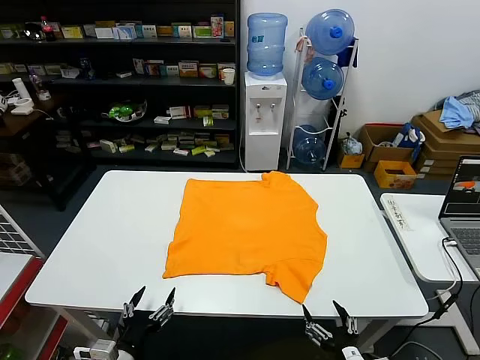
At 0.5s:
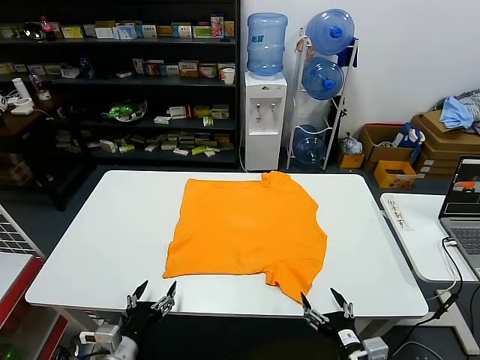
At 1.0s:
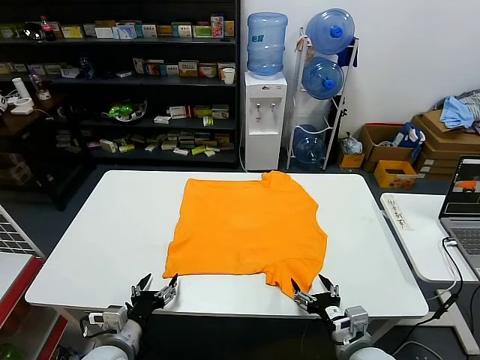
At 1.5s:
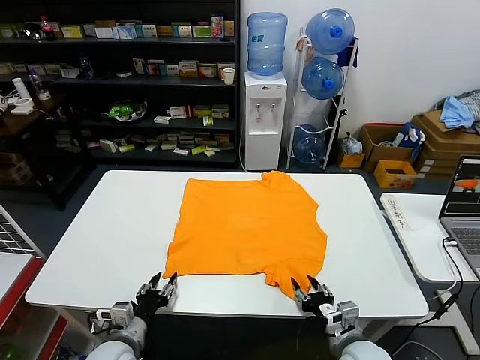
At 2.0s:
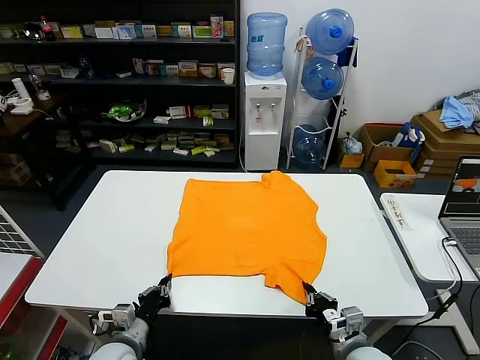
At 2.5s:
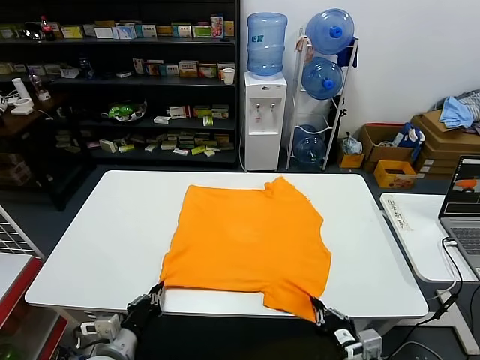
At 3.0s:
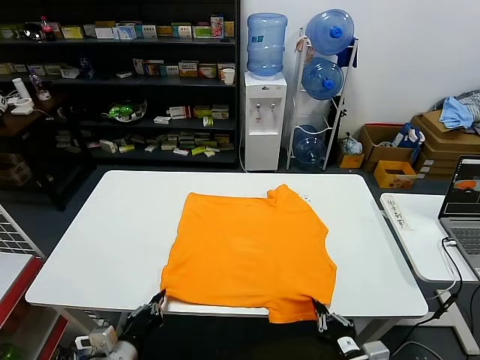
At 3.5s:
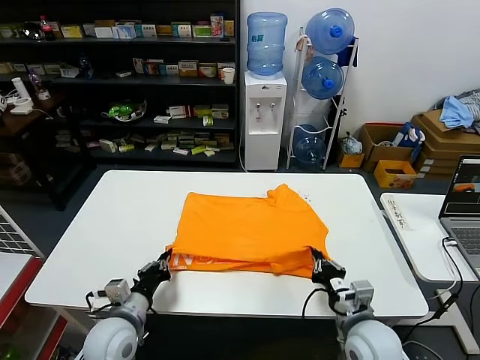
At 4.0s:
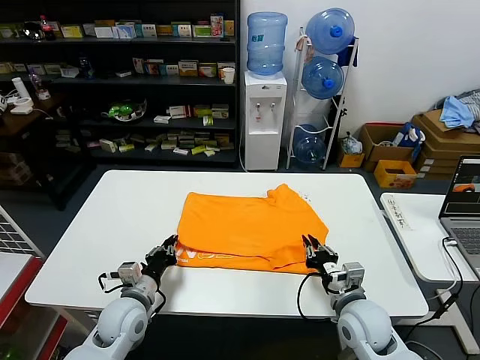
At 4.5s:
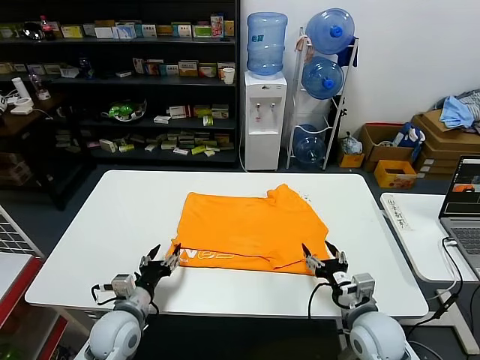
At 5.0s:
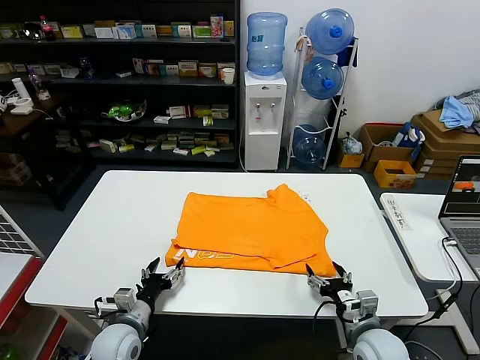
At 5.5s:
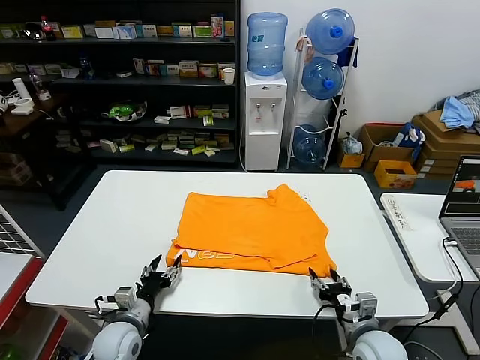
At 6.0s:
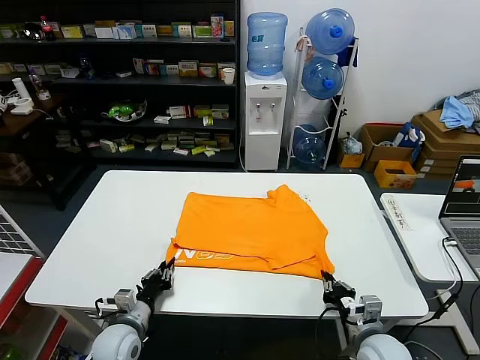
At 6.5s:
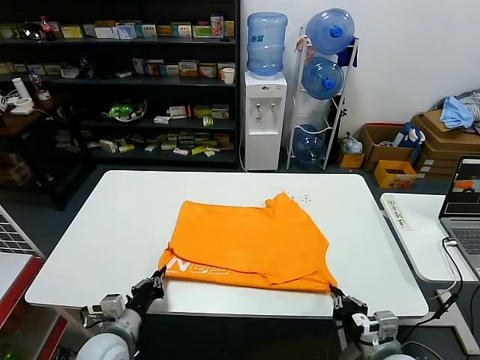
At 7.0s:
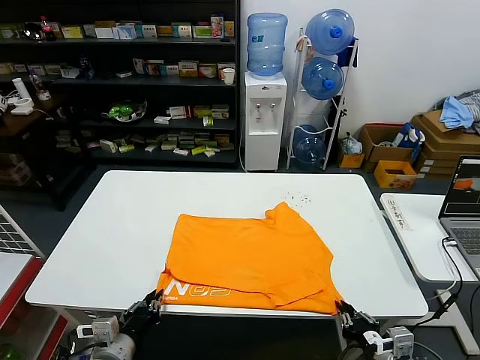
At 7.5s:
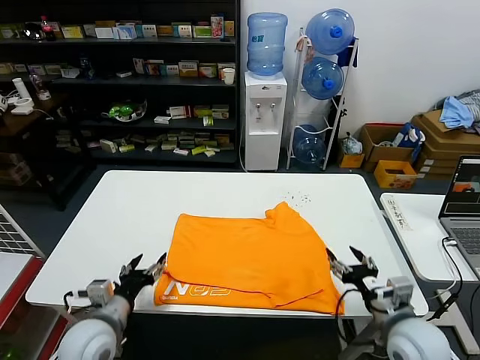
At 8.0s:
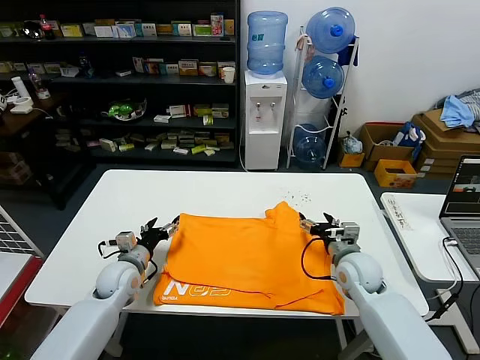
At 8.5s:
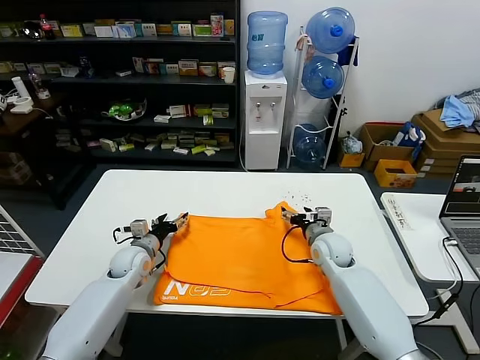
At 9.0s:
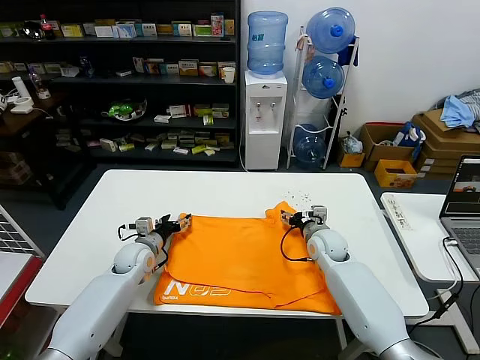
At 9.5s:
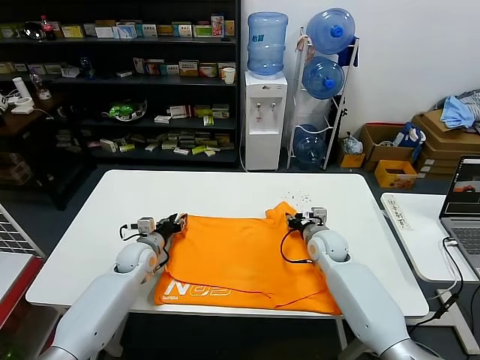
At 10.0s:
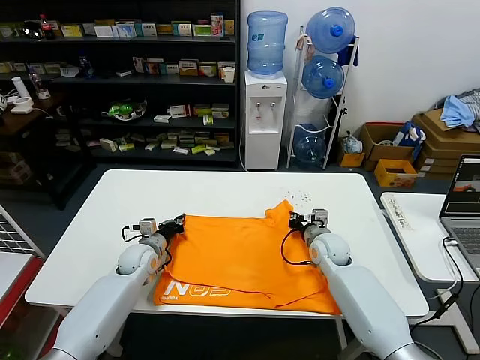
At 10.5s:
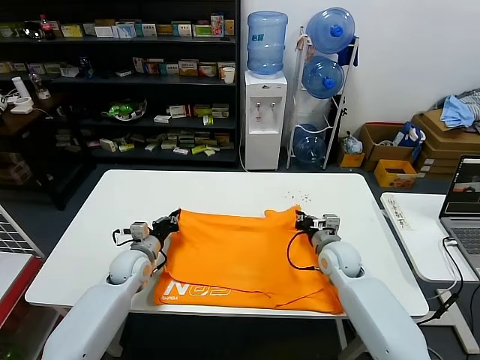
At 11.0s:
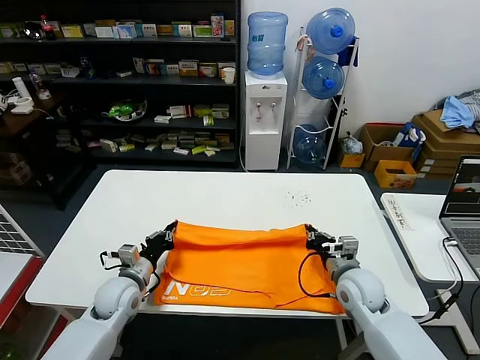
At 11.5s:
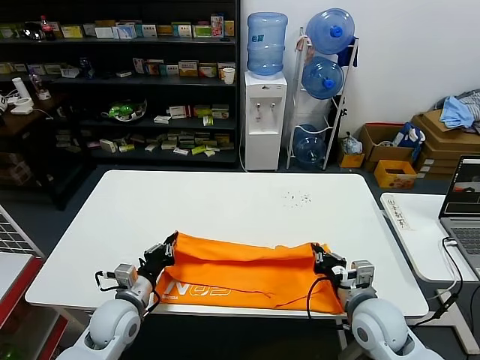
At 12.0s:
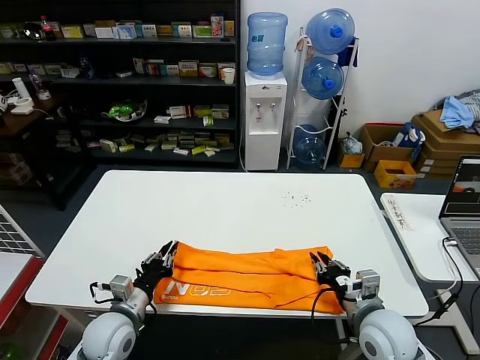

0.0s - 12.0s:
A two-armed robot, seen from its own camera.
Task of the whole recording: fold and organize the clothes.
Step, 0.0s - 2.0s: use both grippers simultaneously to clamp the lower edge of the clothing fabric.
Step, 2.5s - 4.0s: use both grippers to drag the lower edge of the fabric forward and fold it over the upper edge.
Step, 4.5s - 7.0s: Drag the clothes downward with both gripper.
Step, 7.5s - 10.0s: use both grippers simultaneously to clamp the upper edge of the clothing fabric.
2.0s - 4.0s: Both grippers travel together forward, some 10 cm. The right gripper opens up.
4.0s - 6.0s: The right gripper moves backward, some 5 cm, and opens, then closes again, while the left gripper goes approximately 5 cm downward, and opens, then closes again.
6.0s - 8.0s: The left gripper is displaced forward and upward by approximately 15 cm, and opens up. The right gripper travels forward by approximately 20 cm, and opens up.
8.0s - 10.0s: The grippers both shift forward by roughly 5 cm. The right gripper closes up. The left gripper closes.
10.0s - 12.0s: The two grippers go roughly 20 cm backward.

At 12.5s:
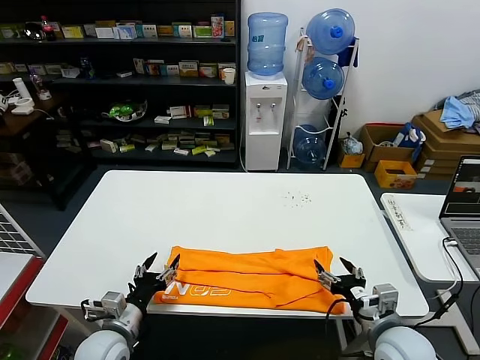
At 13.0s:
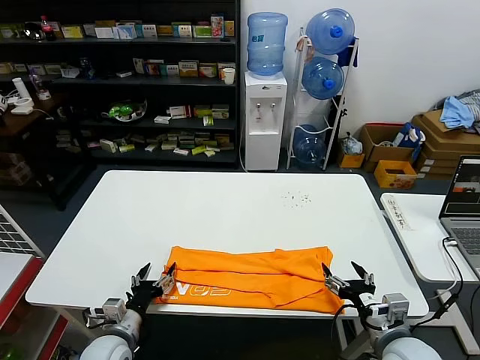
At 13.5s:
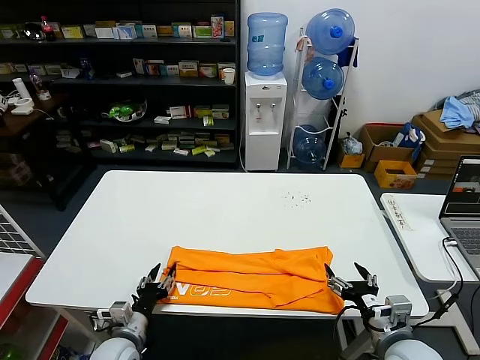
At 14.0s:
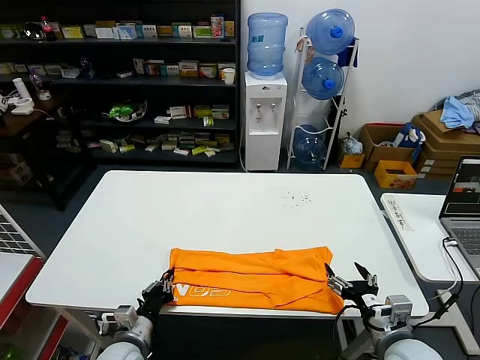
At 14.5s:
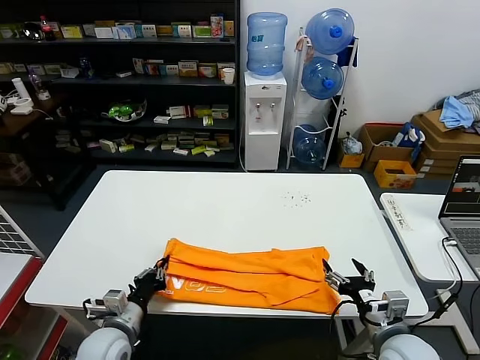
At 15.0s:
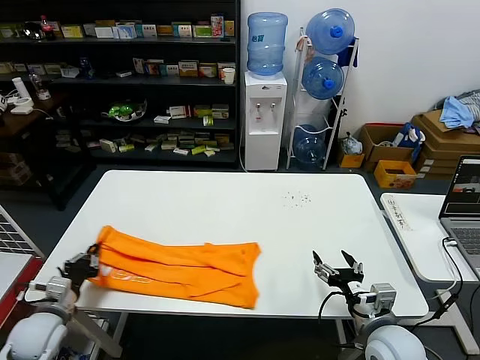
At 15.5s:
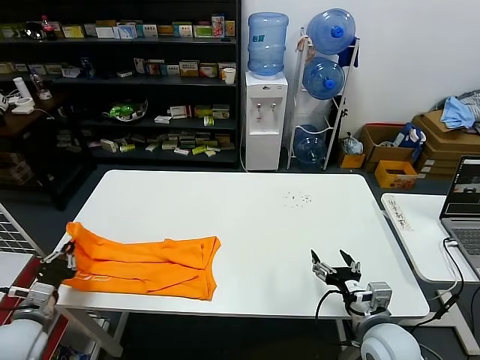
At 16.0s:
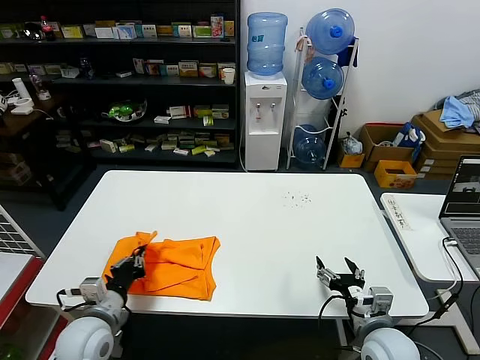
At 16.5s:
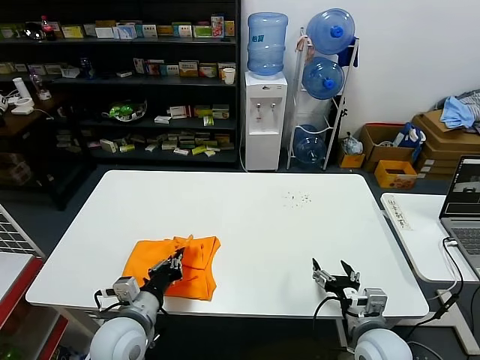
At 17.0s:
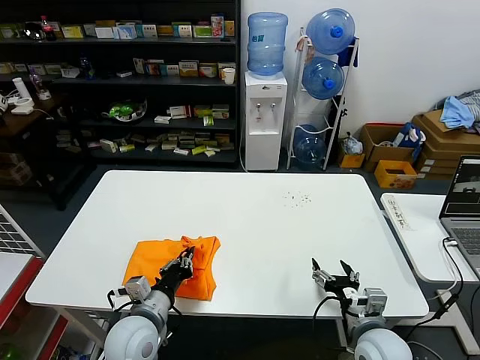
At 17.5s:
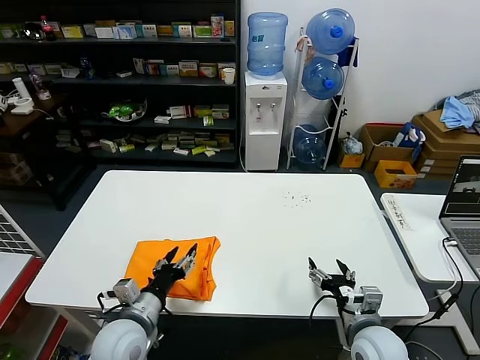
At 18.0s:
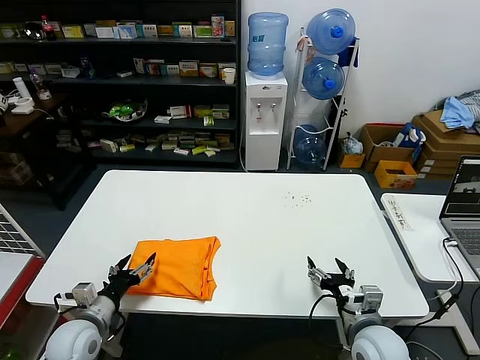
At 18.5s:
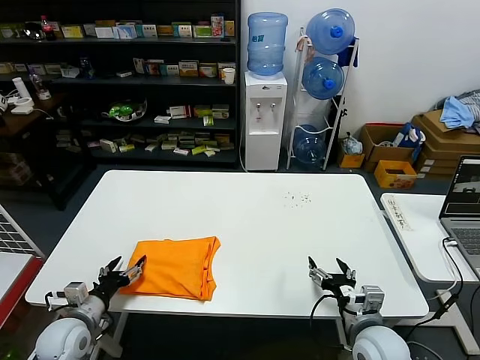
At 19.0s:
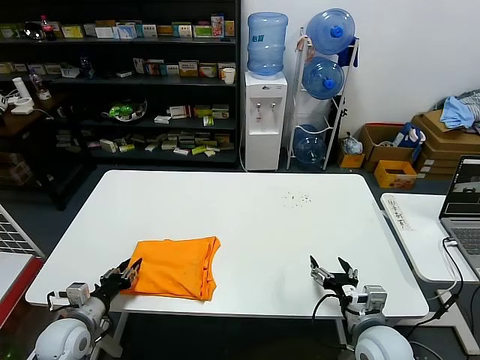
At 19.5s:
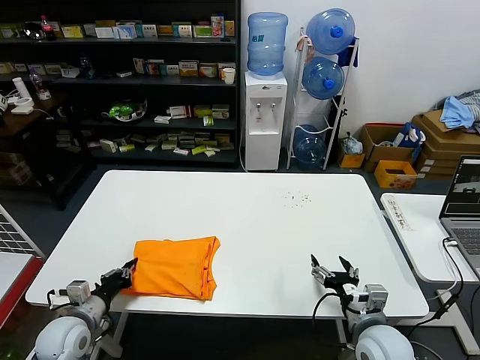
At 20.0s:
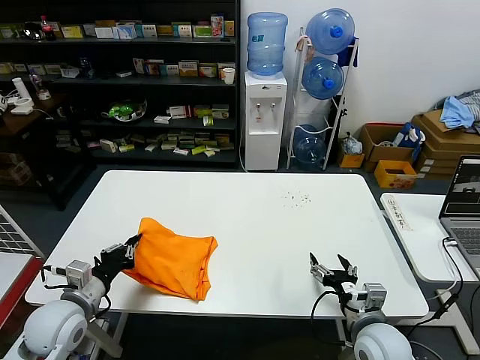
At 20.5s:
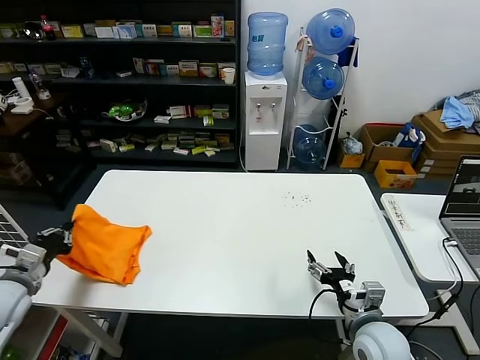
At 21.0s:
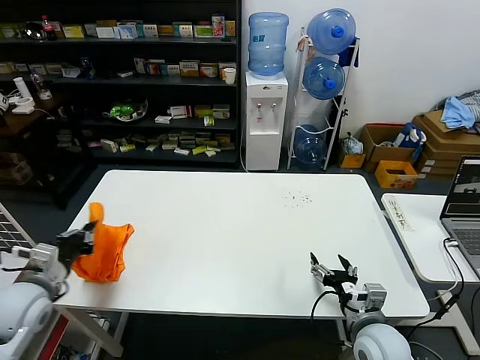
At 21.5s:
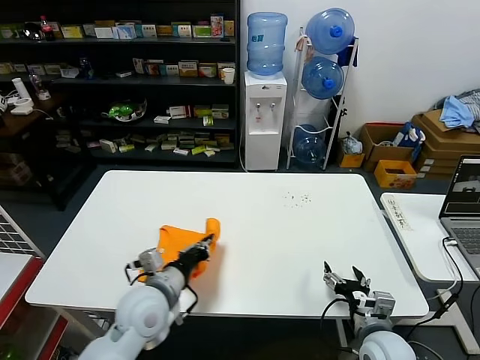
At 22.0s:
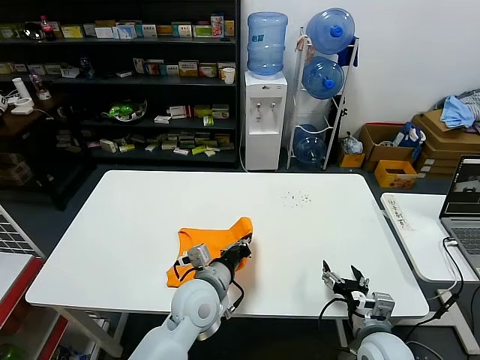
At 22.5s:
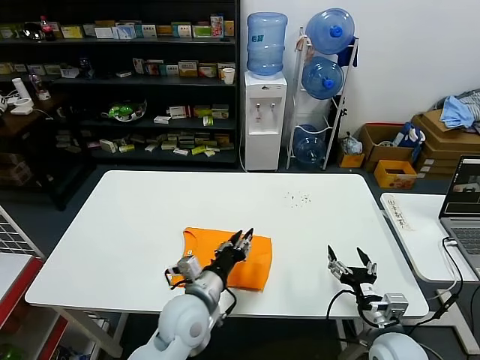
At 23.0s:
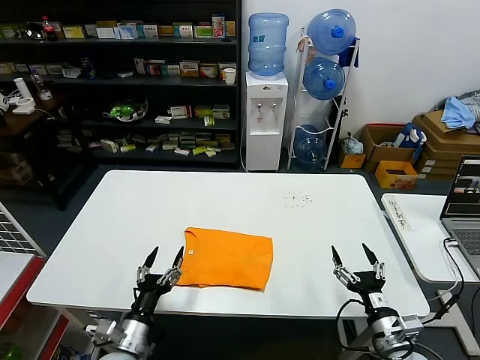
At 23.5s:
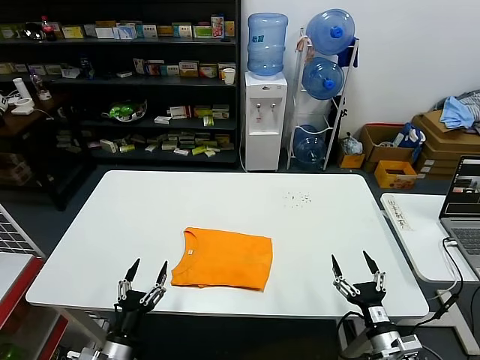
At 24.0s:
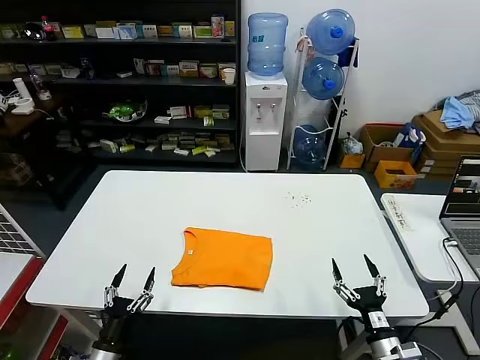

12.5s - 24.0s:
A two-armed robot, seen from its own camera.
Task of the whole recording: fold and organize the clothes.
Step, 12.5s - 14.0s: use the left gripper to clamp the left edge of the fabric.
Step, 14.5s - 17.0s: use the left gripper to drag the left edge of the fabric to the left and folds it over the right edge.
Step, 17.5s - 22.5s: Flip the folded clothes over with left gripper.
12.5s - 14.5s: The left gripper closes.
14.5s - 16.5s: The left gripper travels upward by roughly 5 cm, and travels to the left and back again, approximately 20 cm each way.
16.5s - 18.5s: The left gripper goes about 15 cm to the left and downward, and opens.
18.5s - 20.0s: The left gripper heads upward, covering some 10 cm, and closes.
20.0s - 22.0s: The left gripper heads to the right, covering roughly 25 cm.
22.0s - 24.0s: The right gripper travels backward by roughly 5 cm. The left gripper travels to the left, downward and backward by about 30 cm, and opens.

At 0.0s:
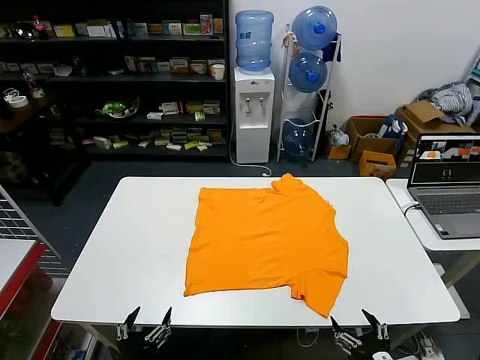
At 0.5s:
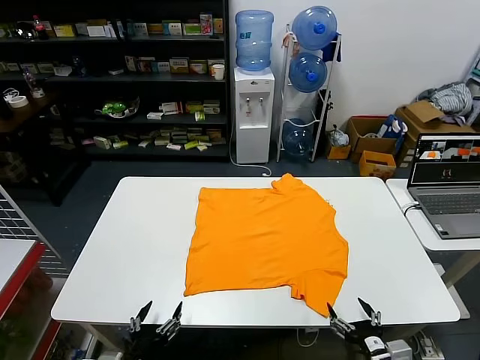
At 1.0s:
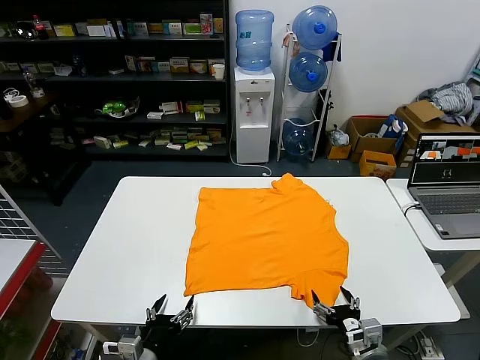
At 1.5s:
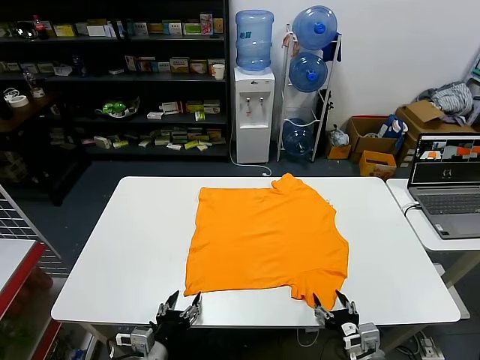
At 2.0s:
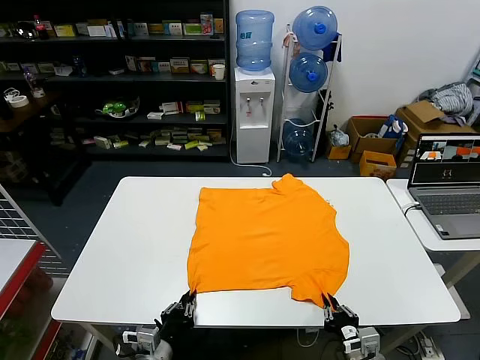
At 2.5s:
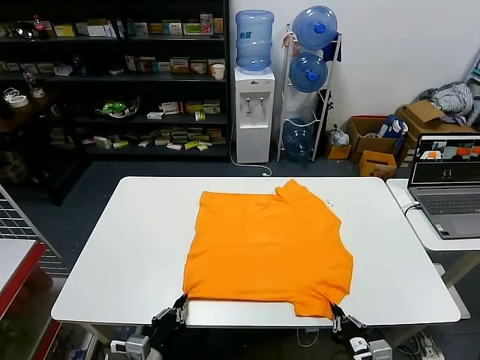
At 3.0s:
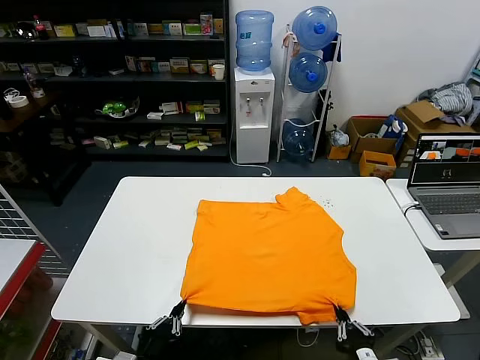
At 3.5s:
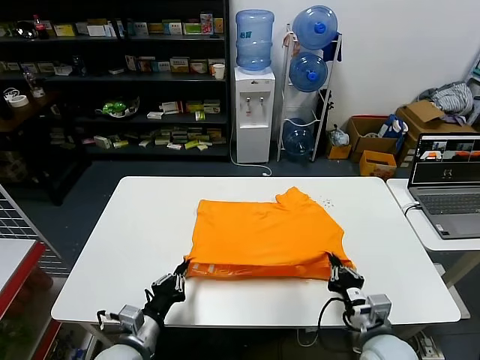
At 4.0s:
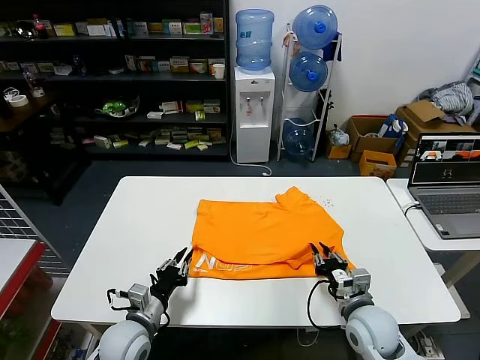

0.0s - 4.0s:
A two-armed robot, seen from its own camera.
Task of the whole recording: fold and organize the clothes.
Step, 0.0s - 2.0s: use both grippers simultaneously to clamp the lower edge of the clothing fabric.
2.0s - 4.0s: The grippers both shift forward by about 10 cm.
